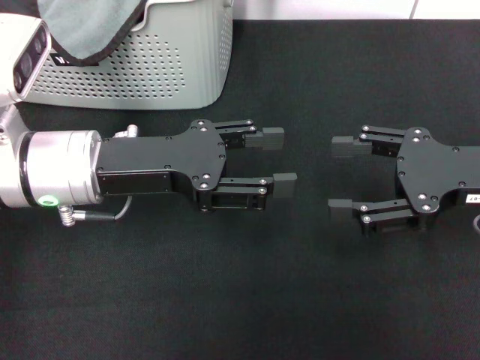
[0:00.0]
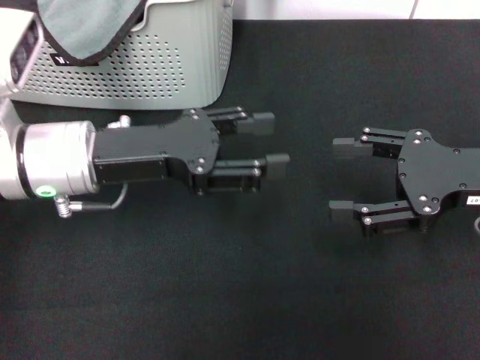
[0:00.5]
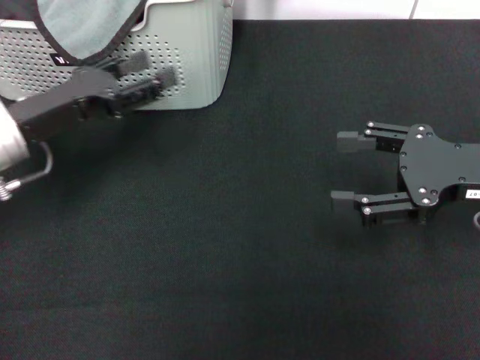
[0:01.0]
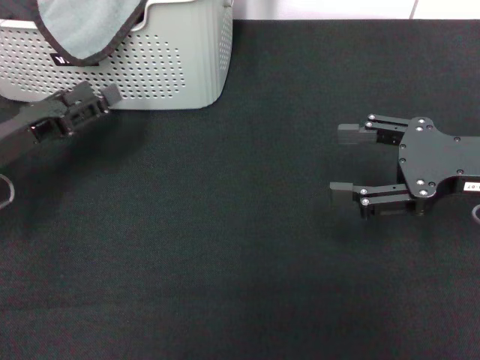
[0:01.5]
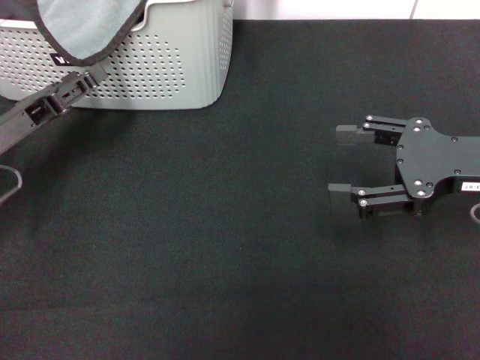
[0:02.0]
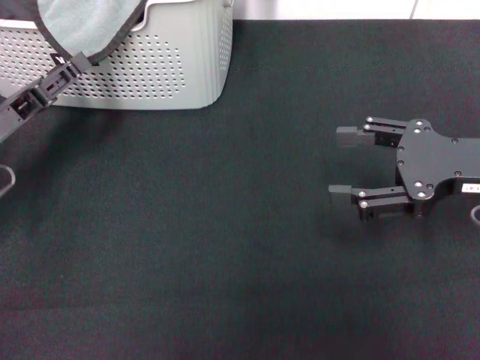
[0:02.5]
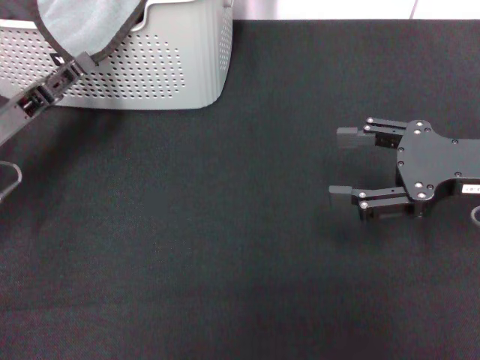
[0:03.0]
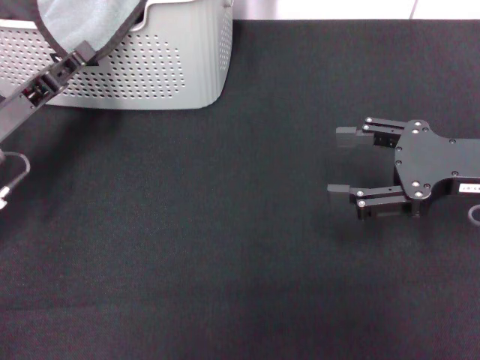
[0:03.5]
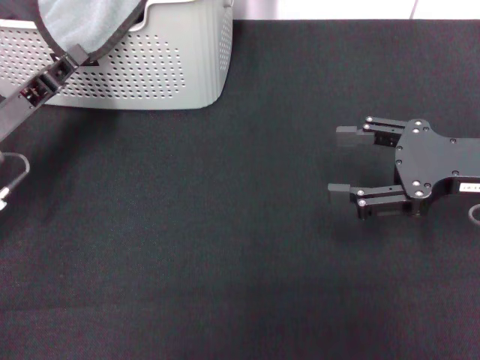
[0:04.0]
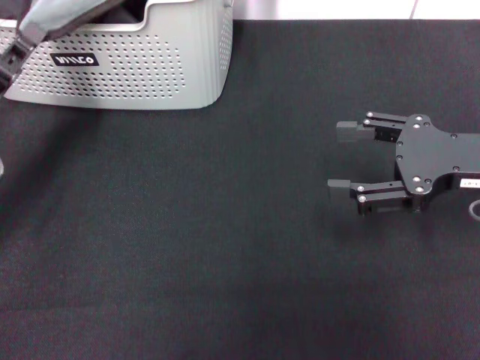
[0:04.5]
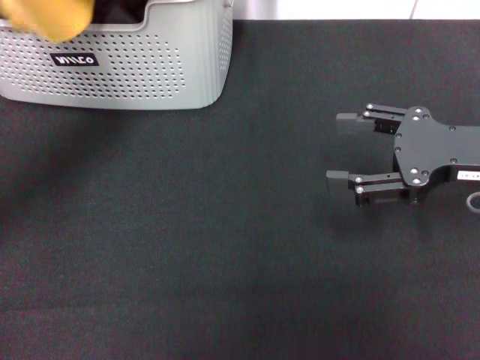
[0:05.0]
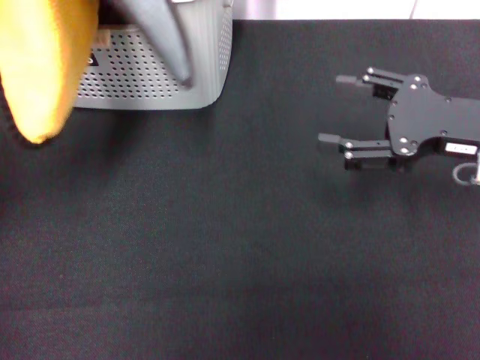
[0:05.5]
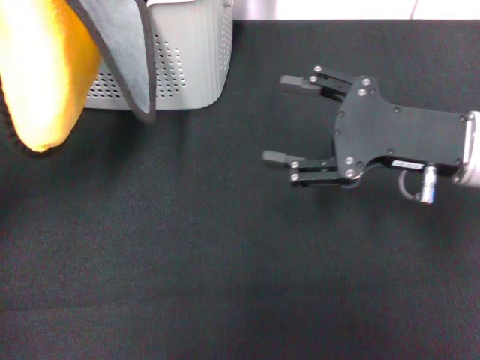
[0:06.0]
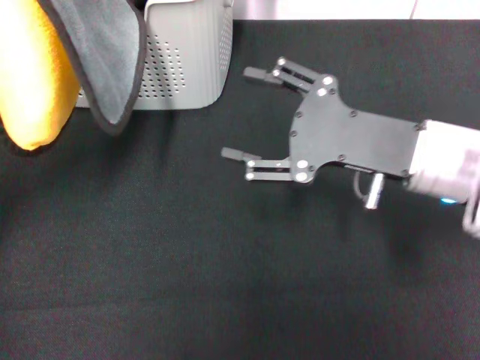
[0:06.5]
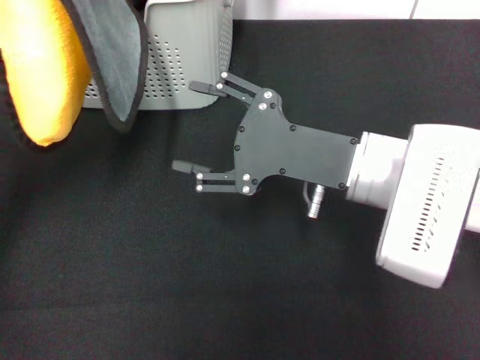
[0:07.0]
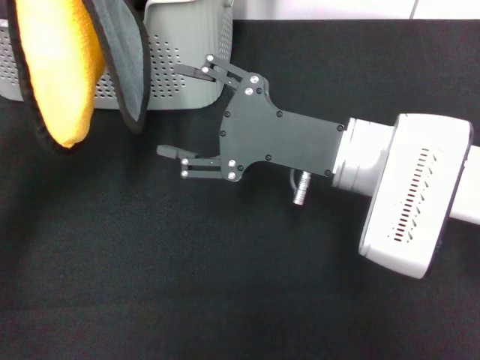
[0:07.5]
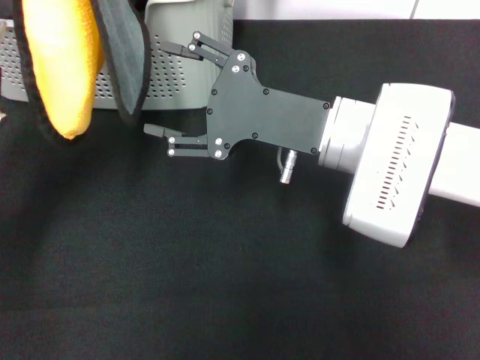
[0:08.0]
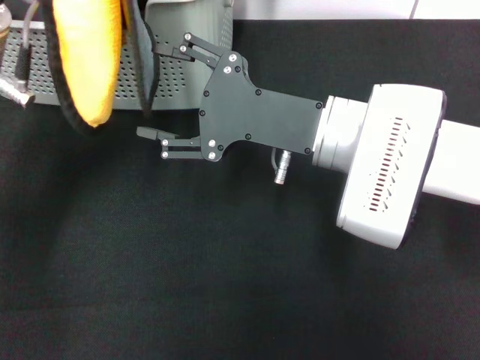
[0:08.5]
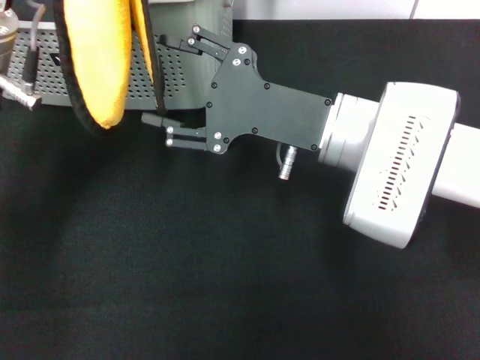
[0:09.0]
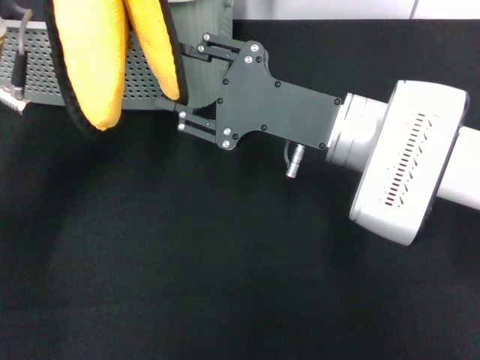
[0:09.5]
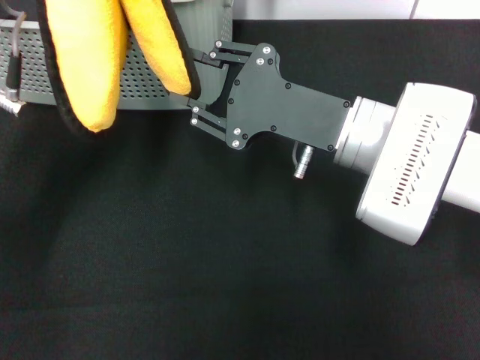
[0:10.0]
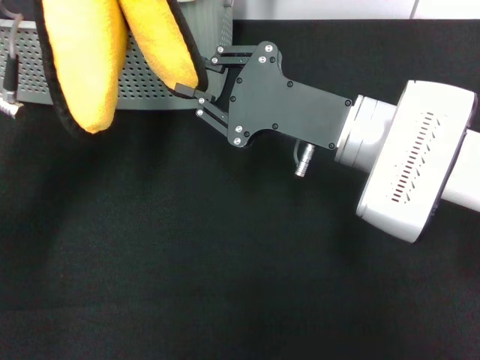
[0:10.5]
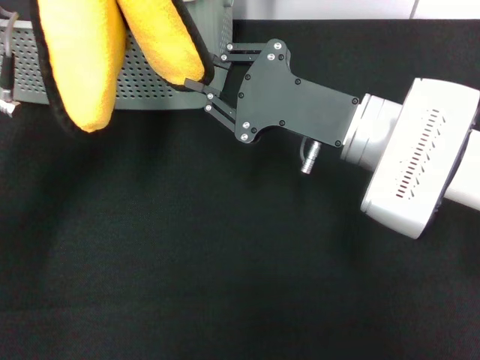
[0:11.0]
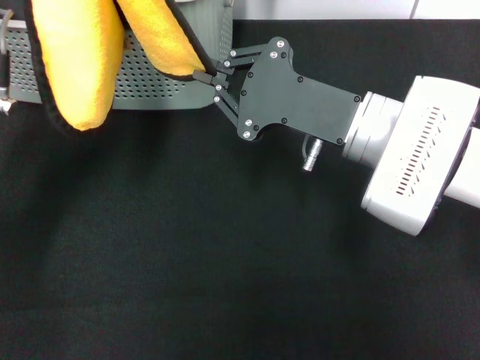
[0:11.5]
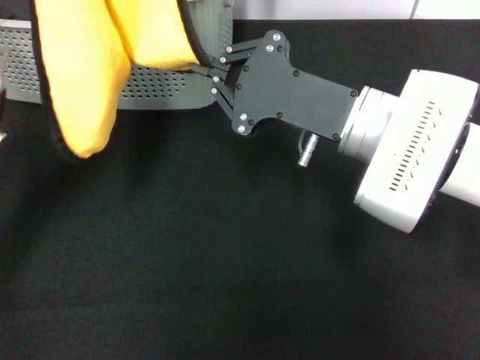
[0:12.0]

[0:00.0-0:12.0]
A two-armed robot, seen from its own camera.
Task of the whole recording: pick up the towel from the storage box and lay it flat on the black tablecloth.
Step, 0:00.0 to 0:04.0: Pick up a towel with the left gripper.
Step, 0:04.5 to 0:11.5: Spread the towel flat with the left gripper.
0:00.0 to 0:02.0: The left gripper shifts about 15 cm to the left and downward.
0:02.0 to 0:04.0: The left gripper closes up.
0:04.0 to 0:06.0: The right gripper shifts roughly 5 cm to the left; the left gripper moves upward, approximately 10 cm.
0:06.0 to 0:08.0: The right gripper goes roughly 10 cm to the left.
0:08.0 to 0:10.0: The right gripper closes up.
0:10.0 to 0:12.0: The right gripper closes up.

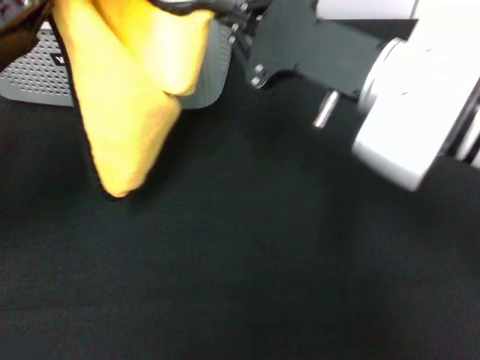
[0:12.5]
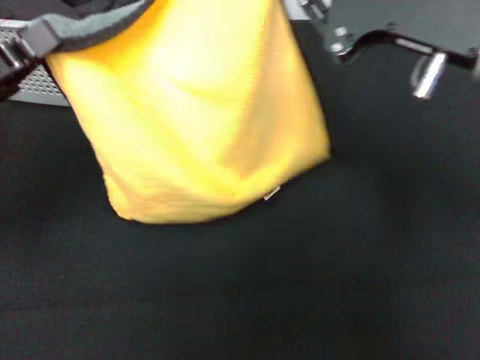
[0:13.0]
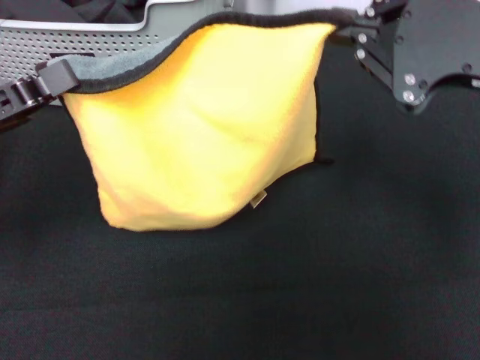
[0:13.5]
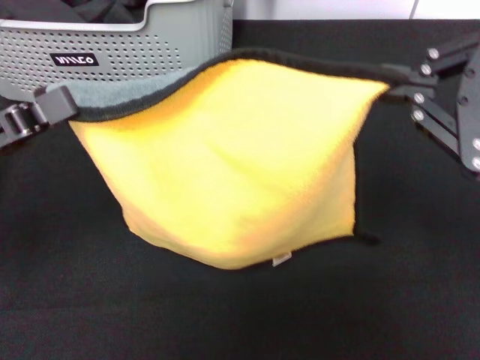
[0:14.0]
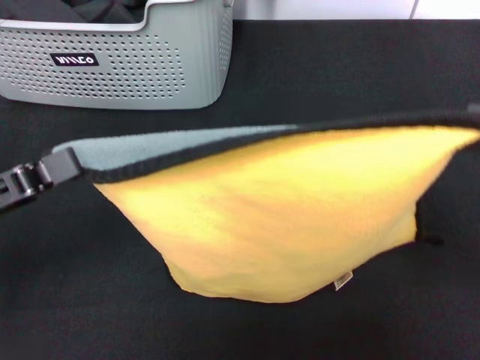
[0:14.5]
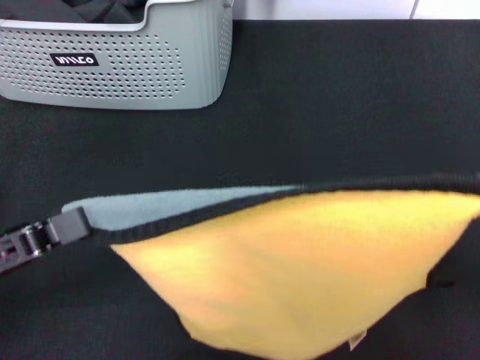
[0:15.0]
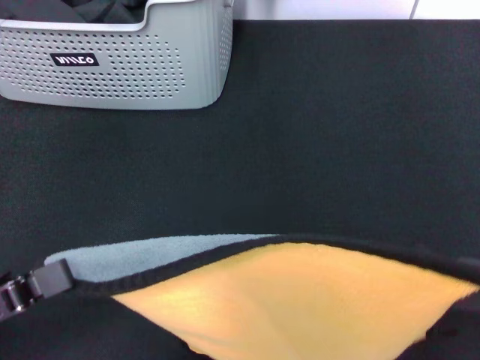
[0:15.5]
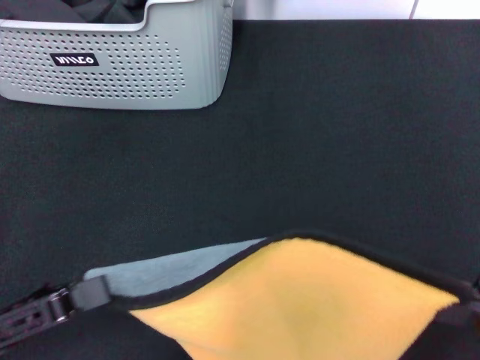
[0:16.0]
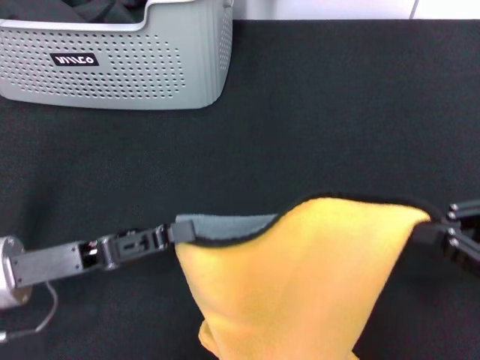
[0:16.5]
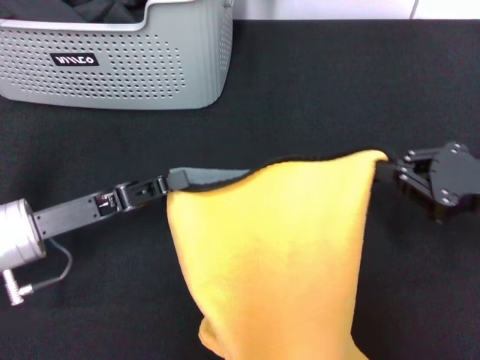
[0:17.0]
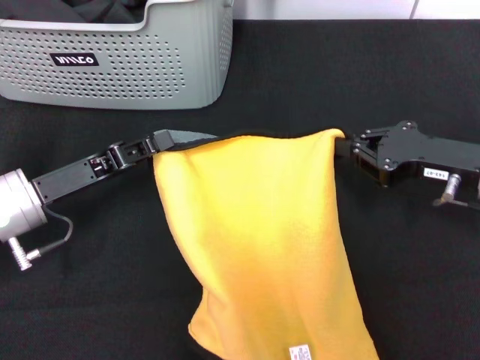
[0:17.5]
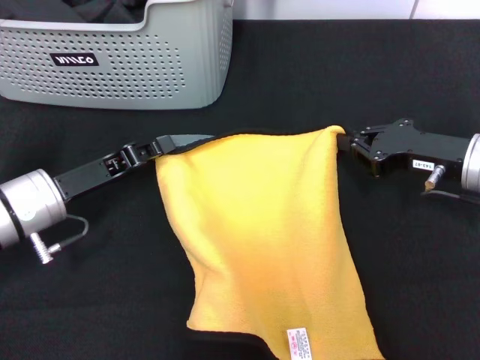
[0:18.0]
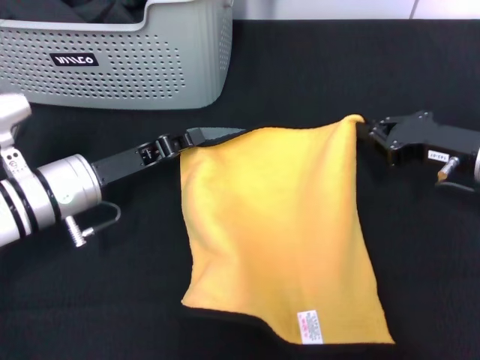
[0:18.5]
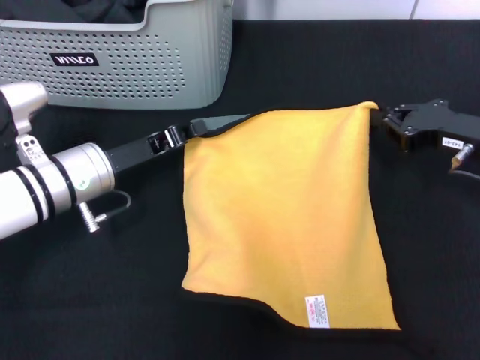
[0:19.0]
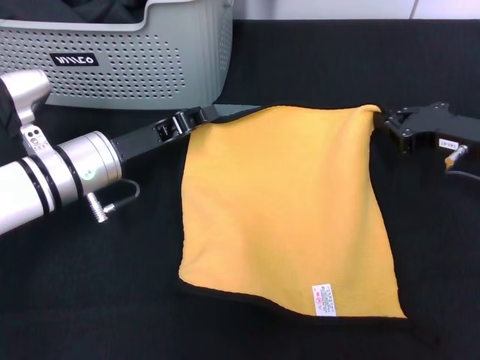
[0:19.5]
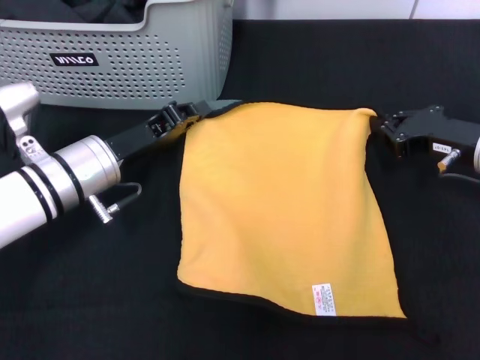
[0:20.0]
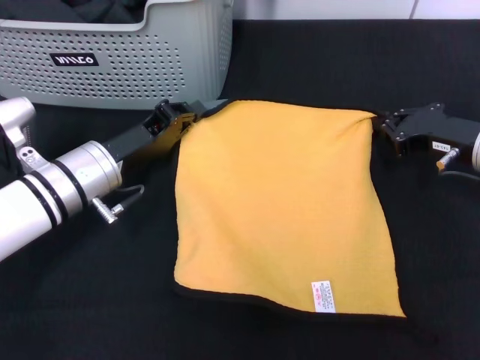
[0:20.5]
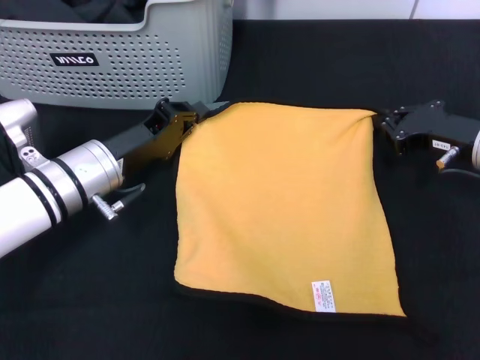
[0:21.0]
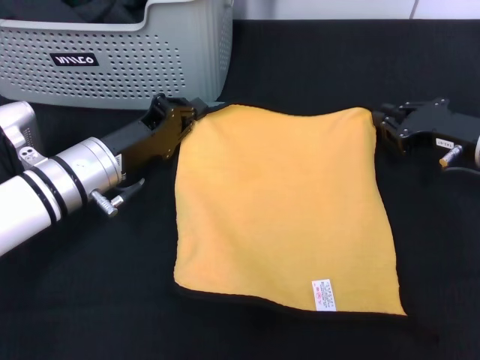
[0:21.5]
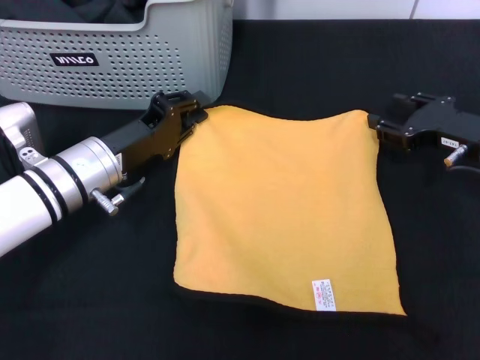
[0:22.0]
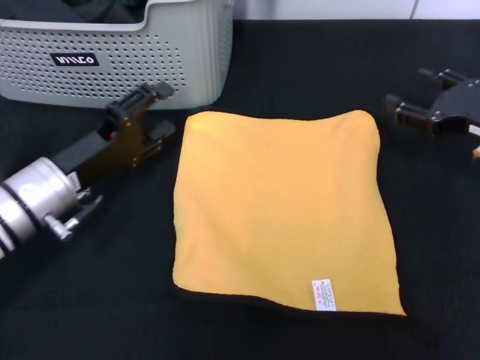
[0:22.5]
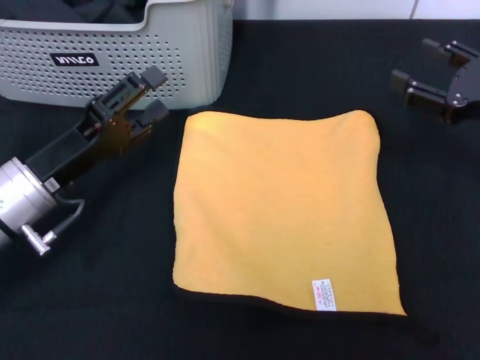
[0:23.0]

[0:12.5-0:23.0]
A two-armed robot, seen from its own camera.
Task of the whole recording: pick up the towel from the storage box and lay it flat on the black tablecloth.
Step, 0:12.5 to 0:22.0: Spread the towel flat with the right gripper.
0:12.5 to 0:14.5: The left gripper heads backward, covering some 5 cm, while the right gripper shifts roughly 20 cm to the right, backward and upward.
0:14.5 to 0:16.5: The right gripper goes some 15 cm downward; the left gripper is displaced downward and to the right by some 10 cm, and travels backward and back again, roughly 5 cm each way.
0:16.5 to 0:19.0: The two grippers go roughly 15 cm forward.
0:21.0 to 0:23.0: The left gripper shifts about 5 cm backward, and opens. The right gripper moves about 5 cm, and opens its fingers.

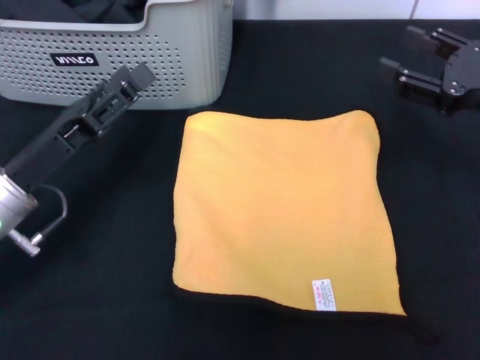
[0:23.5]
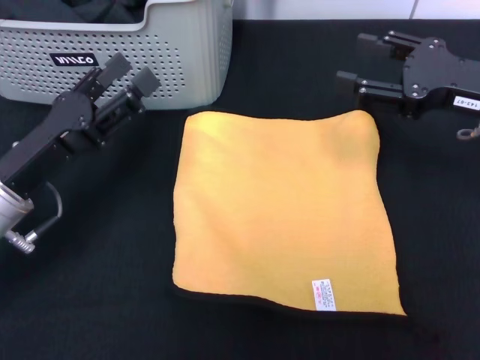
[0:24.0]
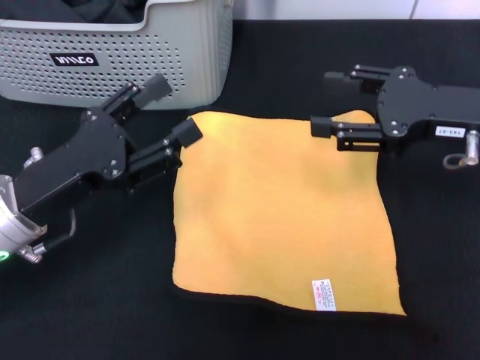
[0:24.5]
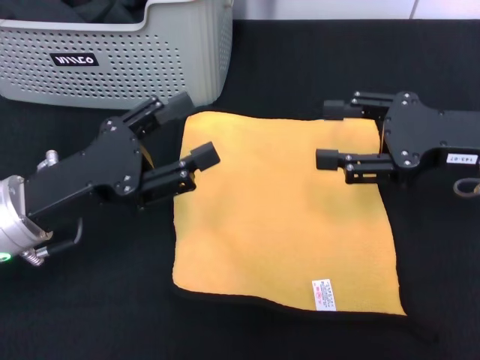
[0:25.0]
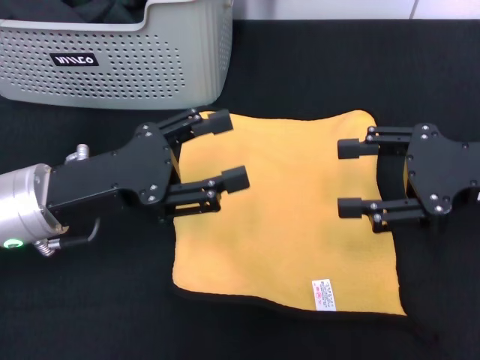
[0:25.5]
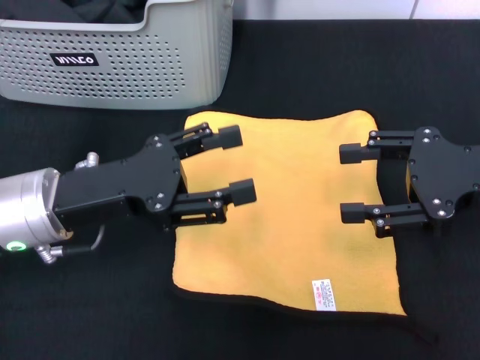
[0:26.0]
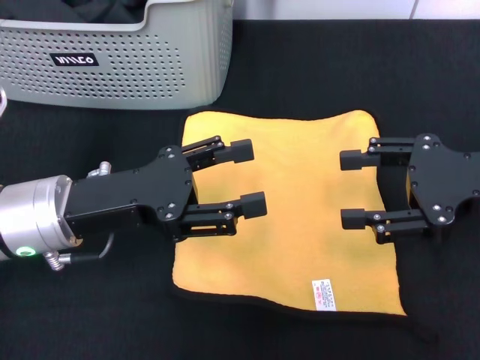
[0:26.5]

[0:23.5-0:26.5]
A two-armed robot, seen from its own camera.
Task of the whole recording: pick up the towel from the storage box and lay it flat on the black tablecloth.
0:25.0 to 0:26.5: The grippers move only a little.
